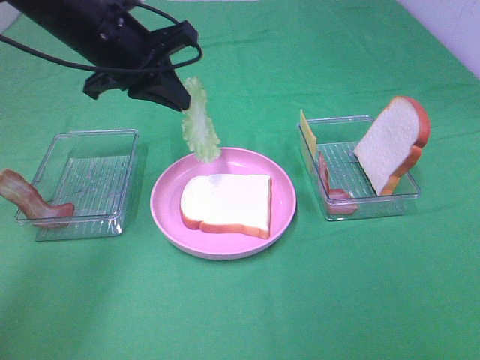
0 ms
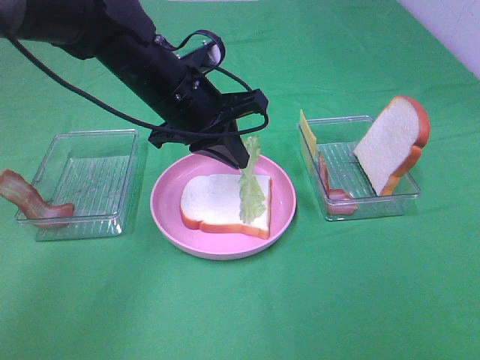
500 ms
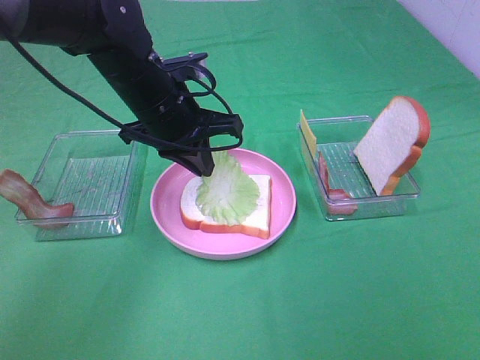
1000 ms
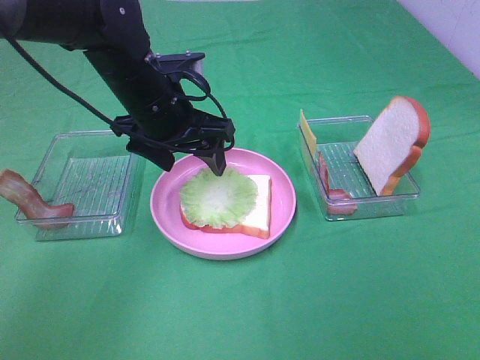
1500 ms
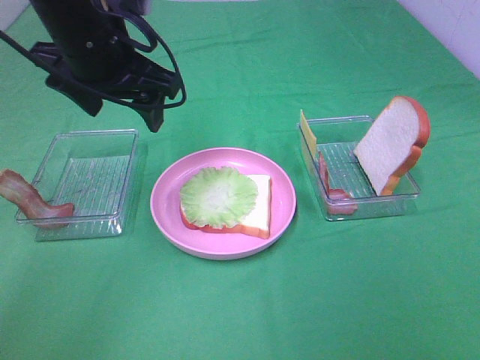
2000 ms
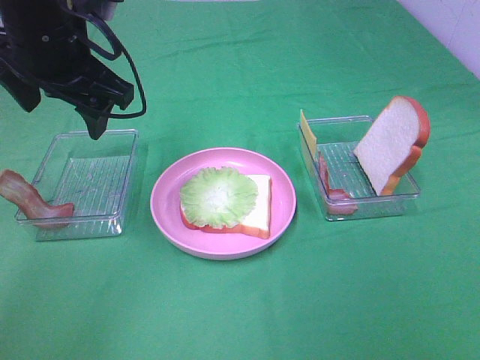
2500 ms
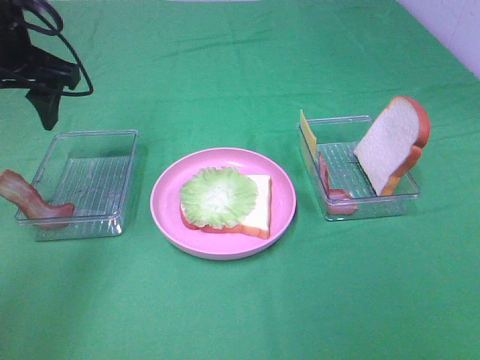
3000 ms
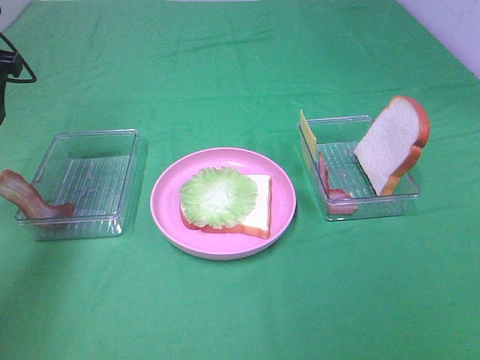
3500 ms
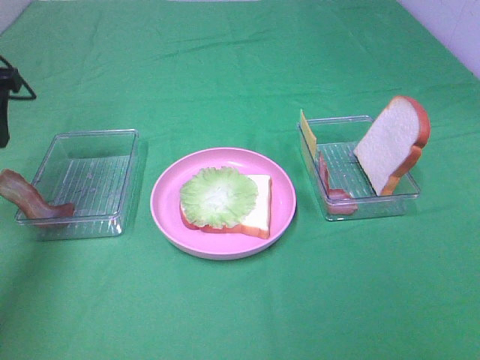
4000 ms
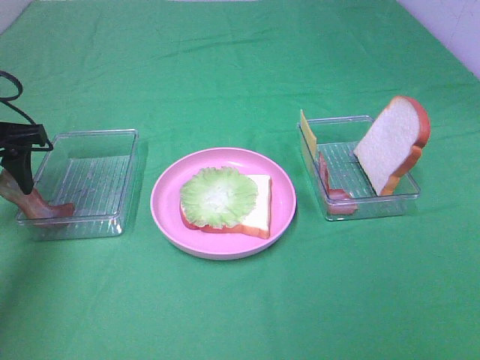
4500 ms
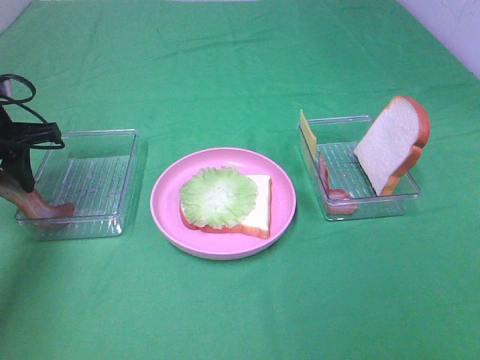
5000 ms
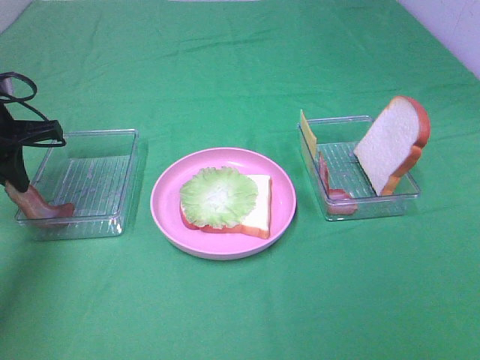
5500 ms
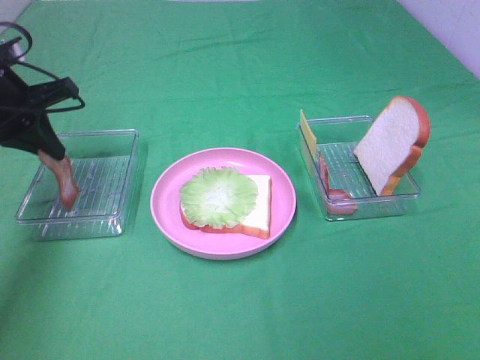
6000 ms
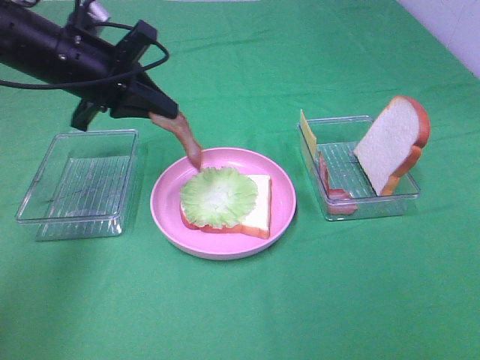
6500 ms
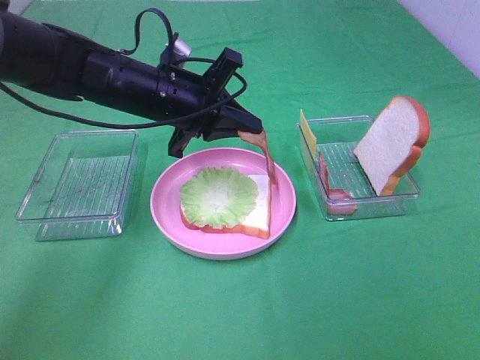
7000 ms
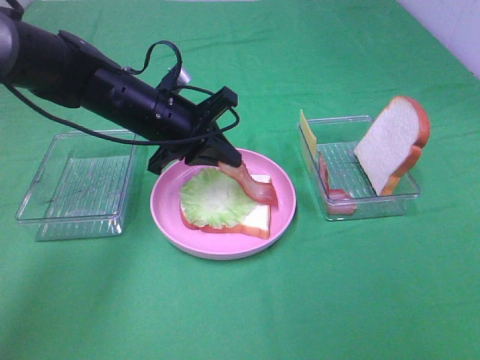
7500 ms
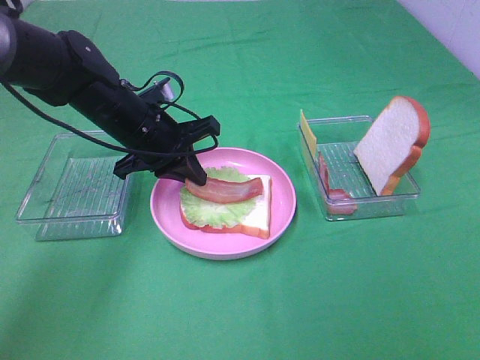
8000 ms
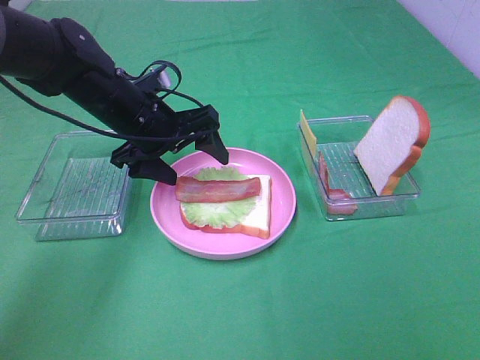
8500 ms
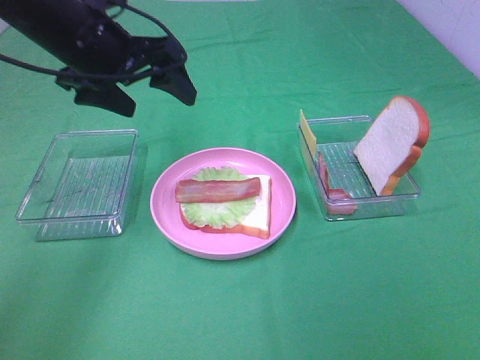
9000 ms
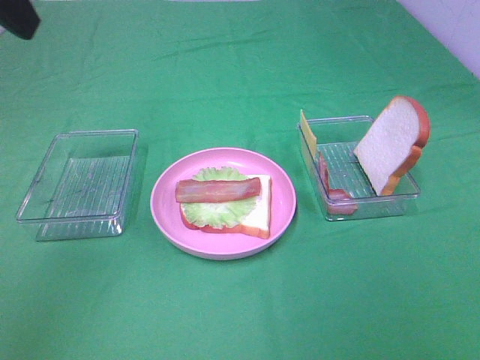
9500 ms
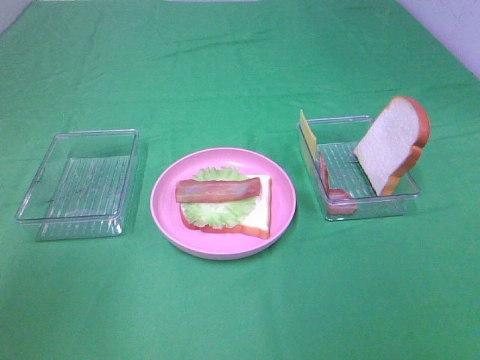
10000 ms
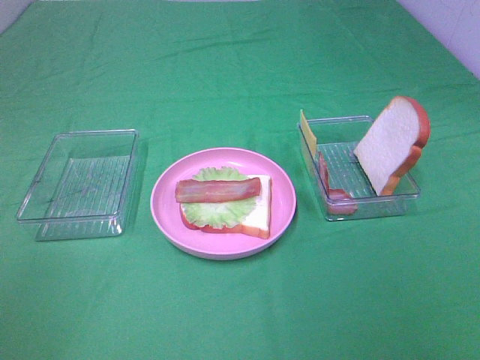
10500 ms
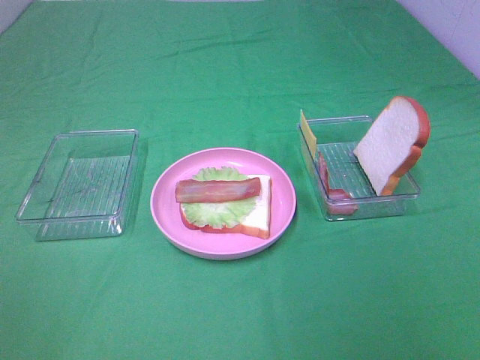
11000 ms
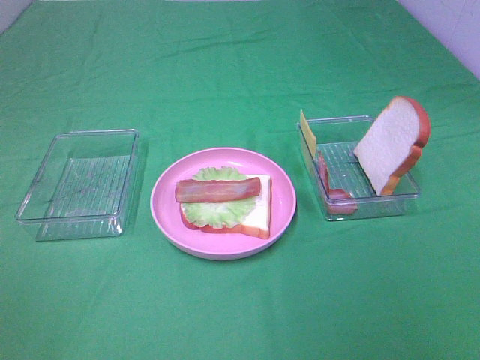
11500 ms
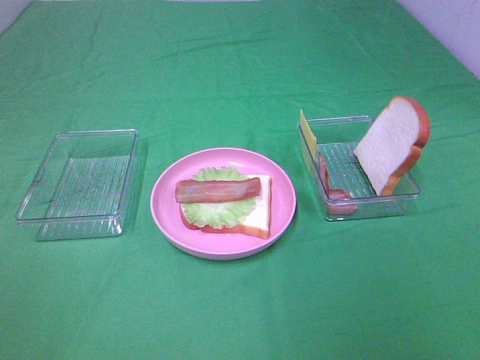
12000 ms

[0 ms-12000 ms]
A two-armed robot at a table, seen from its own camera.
Task of the whole recording: Make sandwiches.
Step, 0 ms to 1500 ms: Left hand:place the lettuce slice on the bread slice.
Step, 2000 ms to 5500 ms: Left hand:grab the bacon.
Step, 6000 ms to 8500 ms: Left hand:place bacon on lettuce slice.
0 ms to 2000 ms: The left gripper goes downward and returns, some 5 cm each way, and opens its fingers.
2000 ms to 4000 ms: The left gripper is displaced to the left by some 15 cm.
4000 ms to 6000 ms: The left gripper changes place by some 5 cm, and closes its fingers.
6000 ms to 8000 ms: The left gripper moves to the right and downward, roughly 15 cm.
8000 ms to 10000 ms: The left gripper heads backward, upward and to the left, covering approximately 35 cm, and opens up.

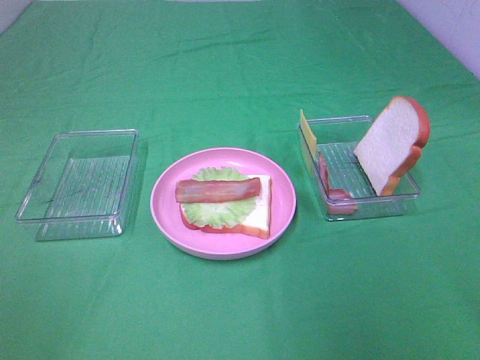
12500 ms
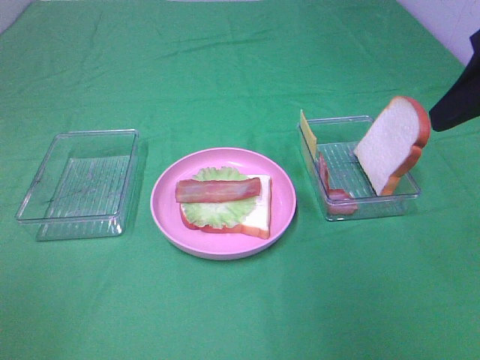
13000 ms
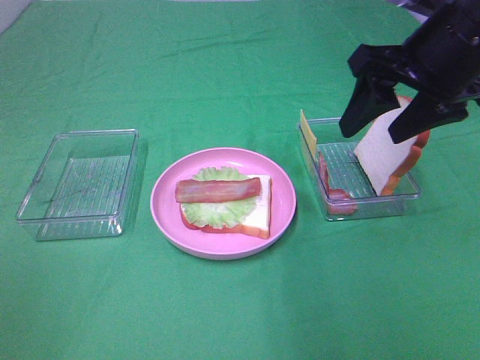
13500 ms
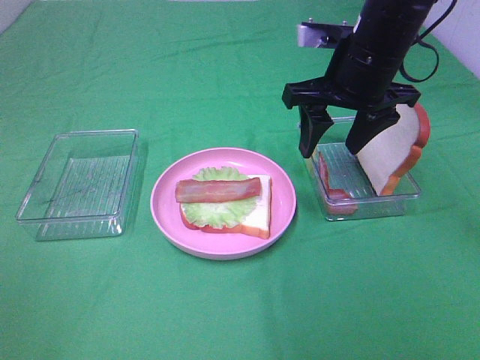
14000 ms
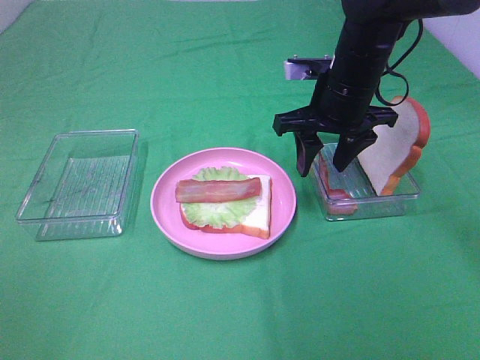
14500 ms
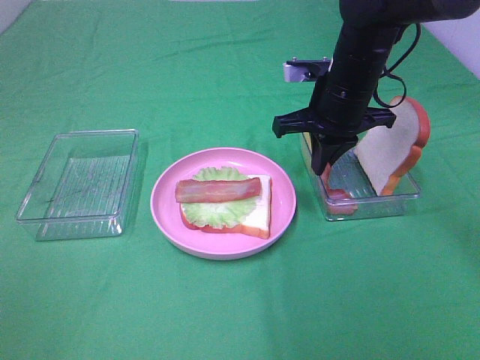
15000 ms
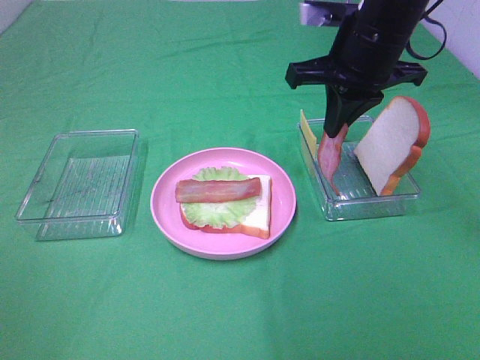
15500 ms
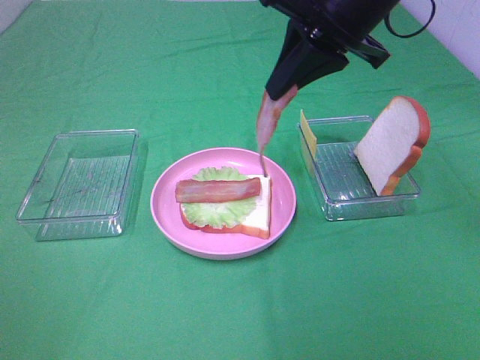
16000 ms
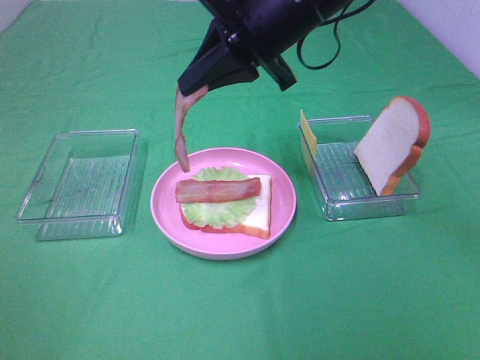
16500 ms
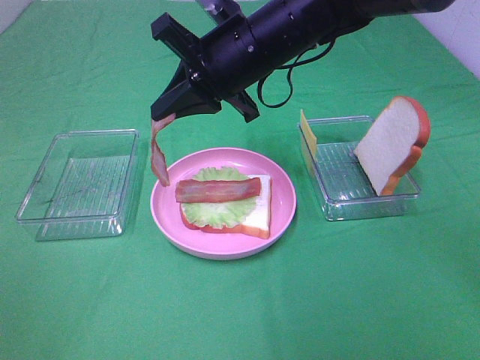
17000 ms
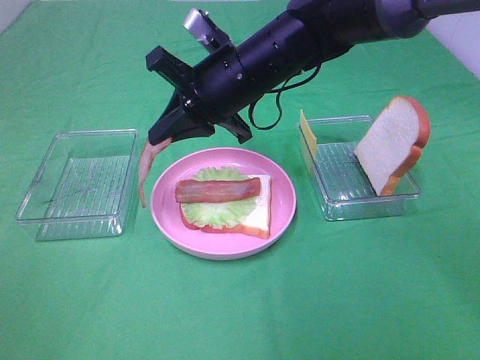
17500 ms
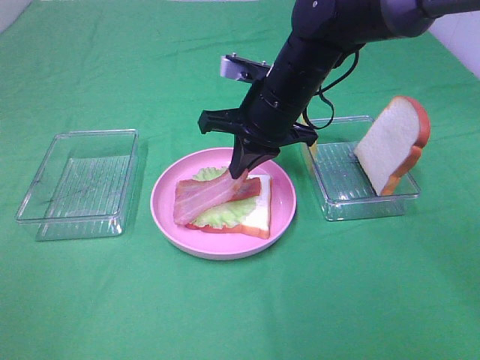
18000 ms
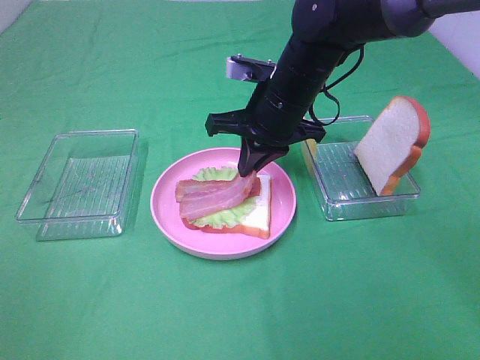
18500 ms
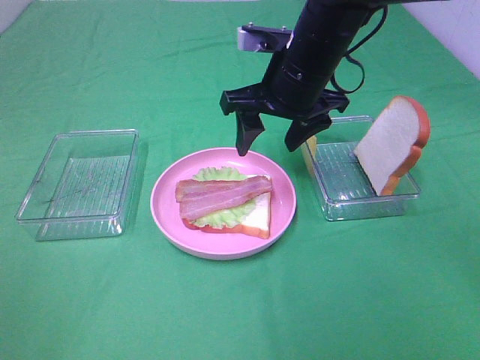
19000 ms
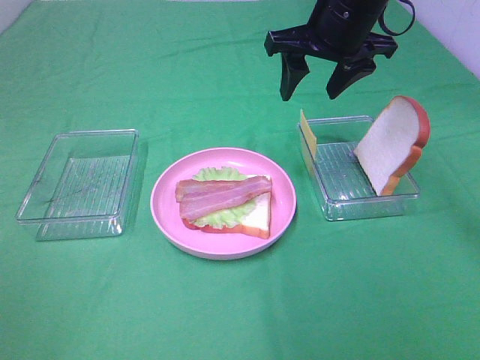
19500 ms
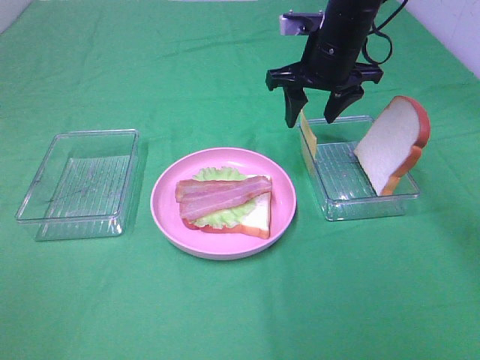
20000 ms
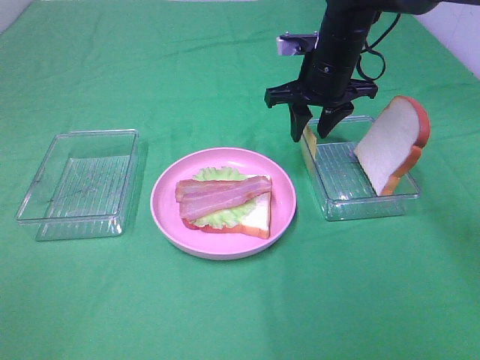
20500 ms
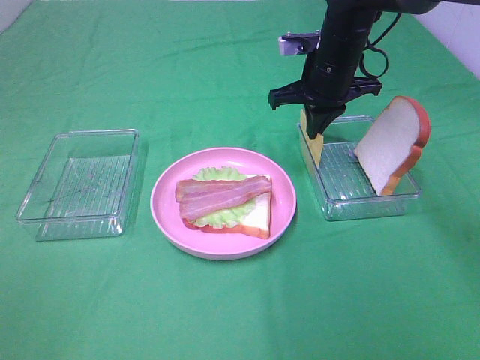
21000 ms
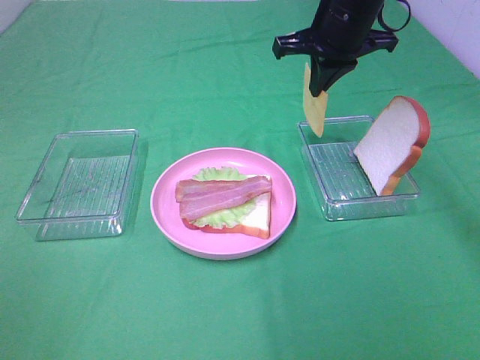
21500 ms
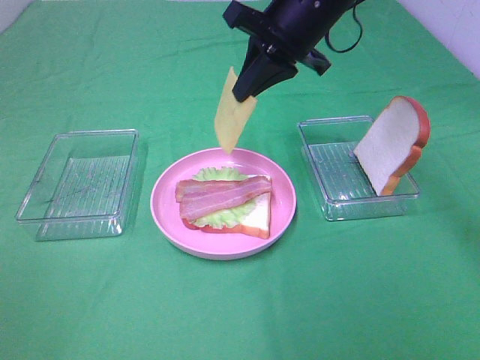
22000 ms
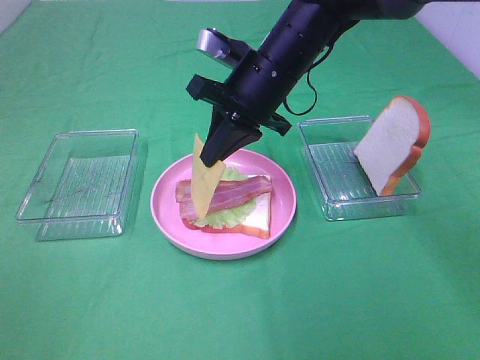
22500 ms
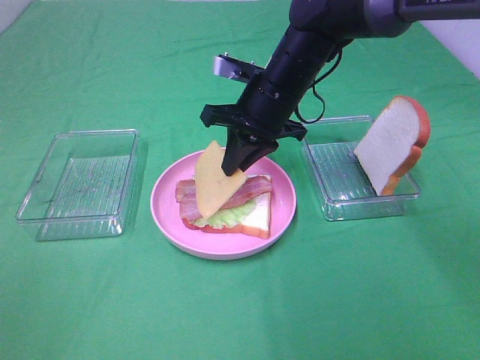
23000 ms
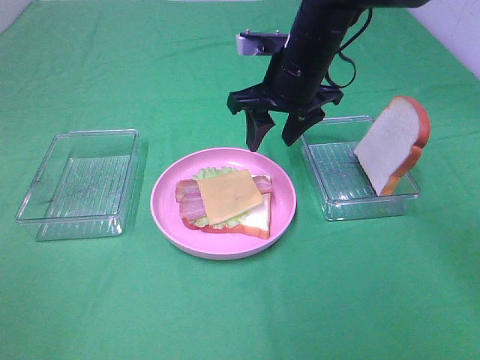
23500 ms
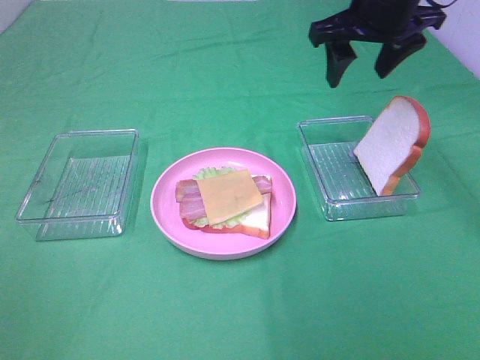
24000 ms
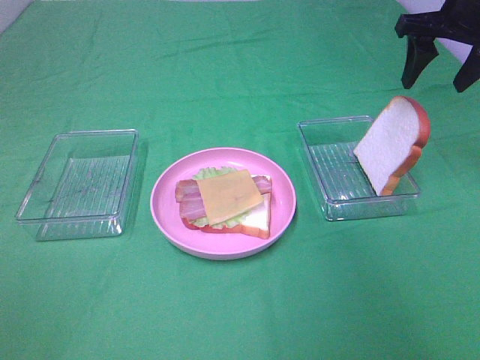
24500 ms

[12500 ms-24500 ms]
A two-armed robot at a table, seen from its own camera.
Task of the whole recording: Make sandwiches.
Step, 12500 ms to 15000 ms: Right hand:grab the bacon.
Step, 15500 ms to 19000 ms: Right hand:place bacon on bacon.
Step, 19500 ms to 21000 ms: Right hand:grab the cheese slice.
Step, 21500 ms to 23500 ms: Right hand:place the cheese slice on top of the bacon.
12500 ms to 14500 ms: The right gripper goes about 35 cm forward, downward and to the left.
14500 ms to 16500 ms: The right gripper is displaced upward and to the left by some 15 cm, and closes.
16500 ms to 18500 ms: The right gripper shifts approximately 10 cm downward.
18500 ms to 20500 ms: The right gripper heads forward and to the right, covering approximately 10 cm, and travels upward and back again, approximately 10 cm each way.
20500 ms to 22500 ms: The right gripper heads to the left and backward, covering some 10 cm, and closes up.
22500 ms to 24500 ms: The right gripper shifts approximately 25 cm to the right, and opens its fingers.

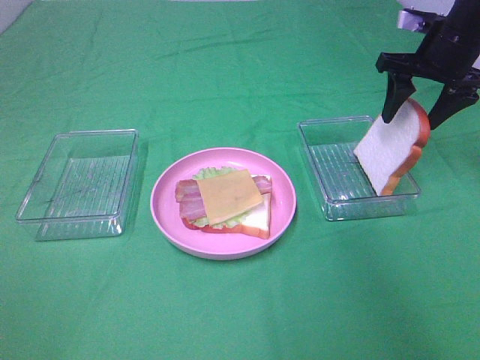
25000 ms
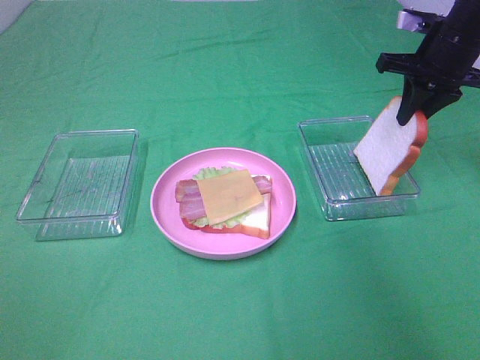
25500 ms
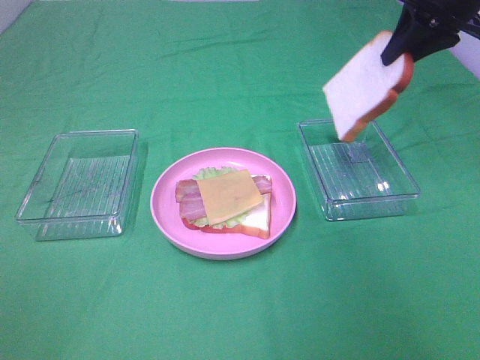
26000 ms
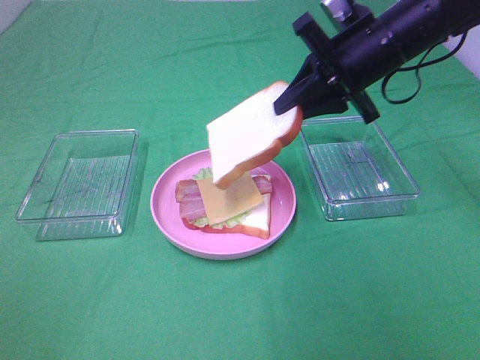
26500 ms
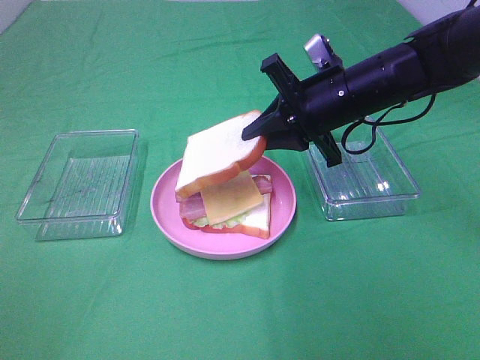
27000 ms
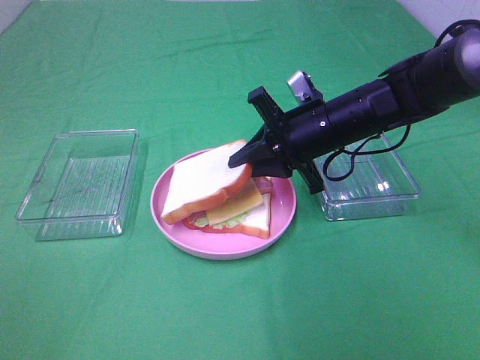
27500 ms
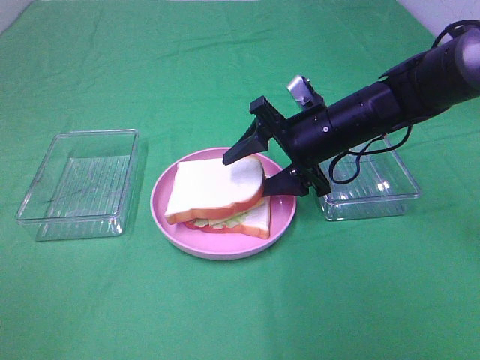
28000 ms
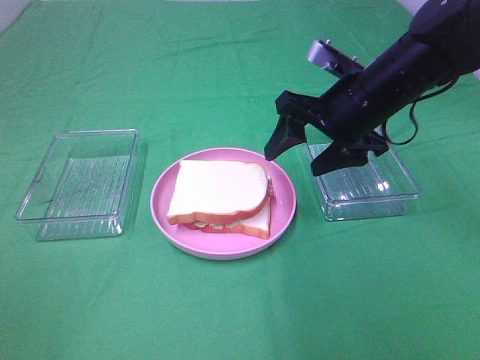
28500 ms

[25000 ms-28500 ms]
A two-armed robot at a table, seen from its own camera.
Task of the whole recording: Make sandwiches.
Step, 25500 ms to 28000 ms: Right hand:place the bread slice on the cheese slice.
25000 ms to 27000 ms: The right gripper heads to the left and backward, covering some 15 cm, and closes up.
27000 ms to 28500 ms: The right gripper opens its fingers.
